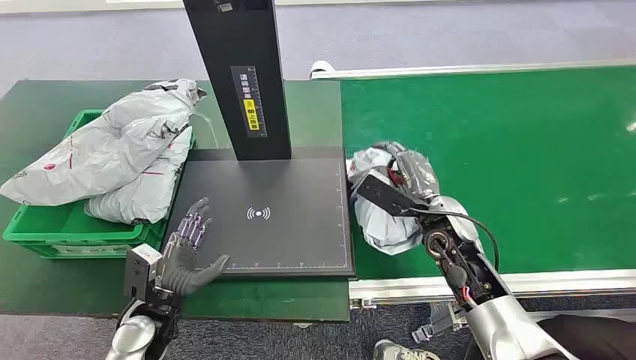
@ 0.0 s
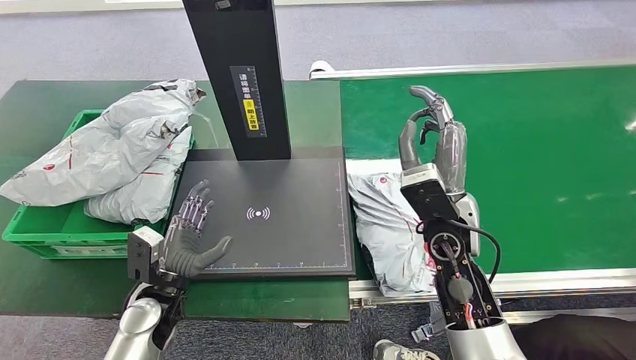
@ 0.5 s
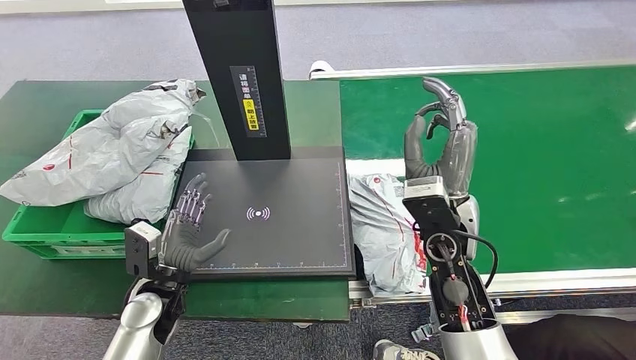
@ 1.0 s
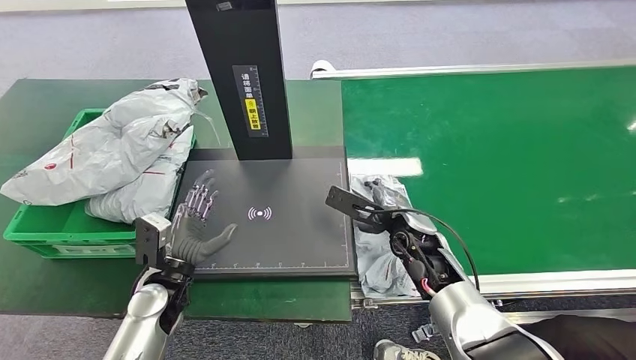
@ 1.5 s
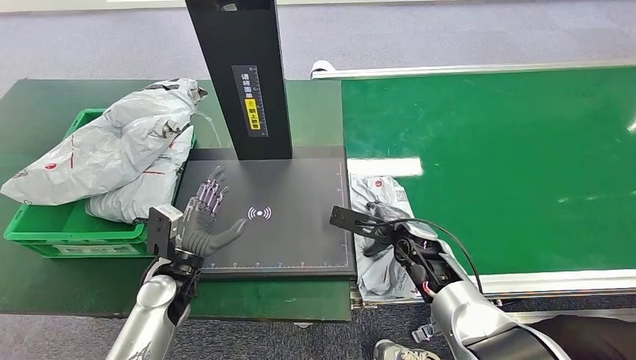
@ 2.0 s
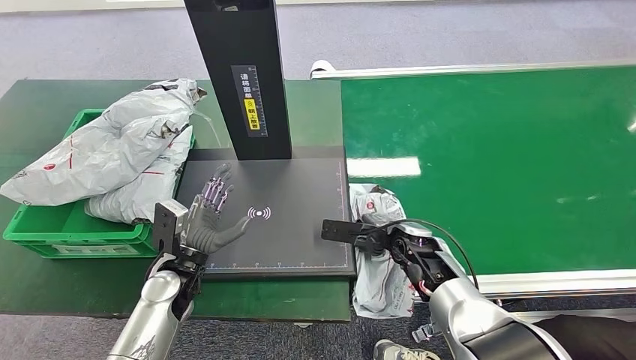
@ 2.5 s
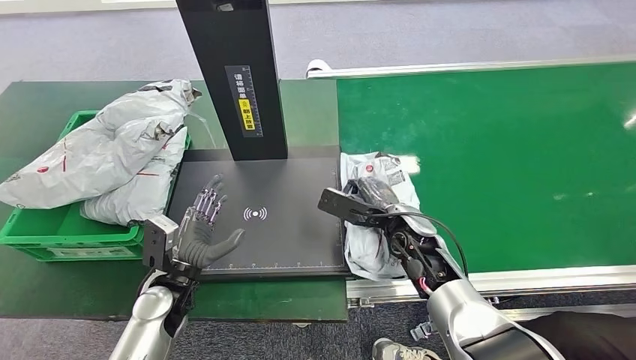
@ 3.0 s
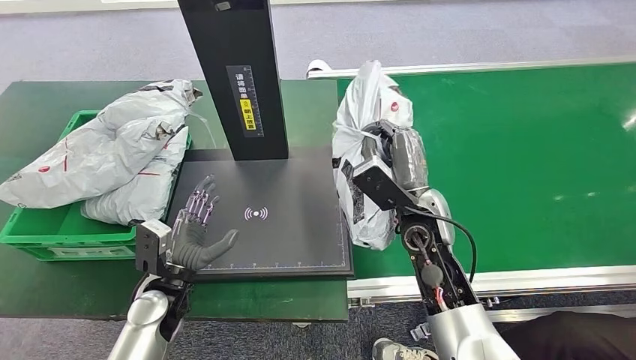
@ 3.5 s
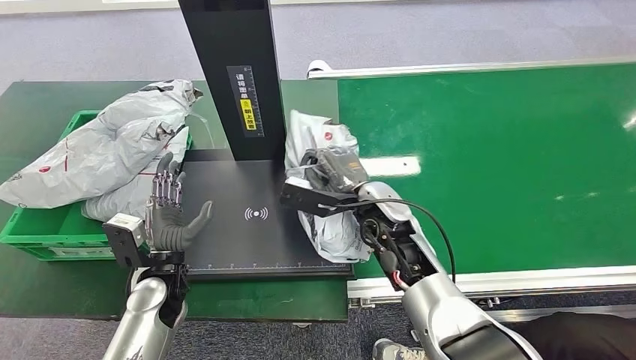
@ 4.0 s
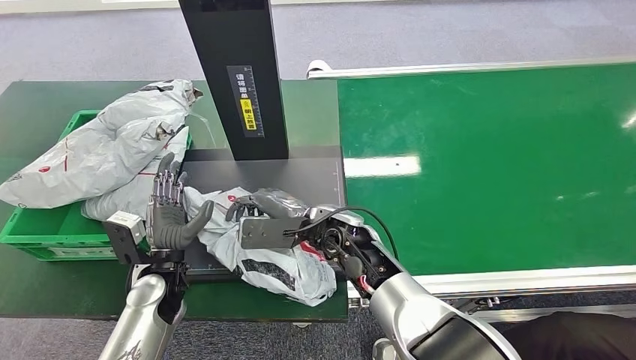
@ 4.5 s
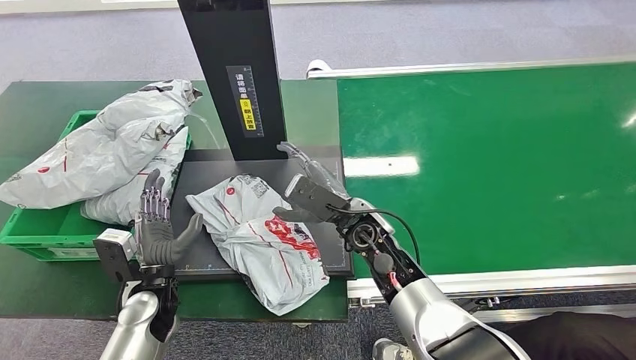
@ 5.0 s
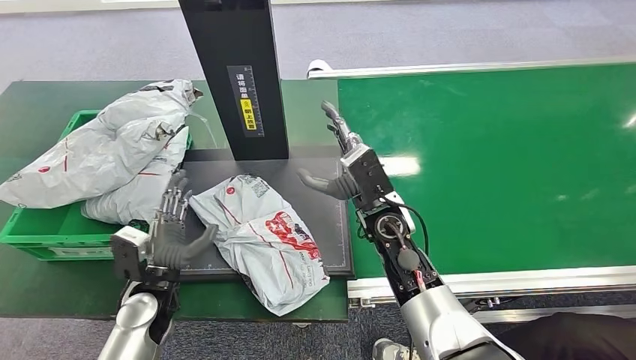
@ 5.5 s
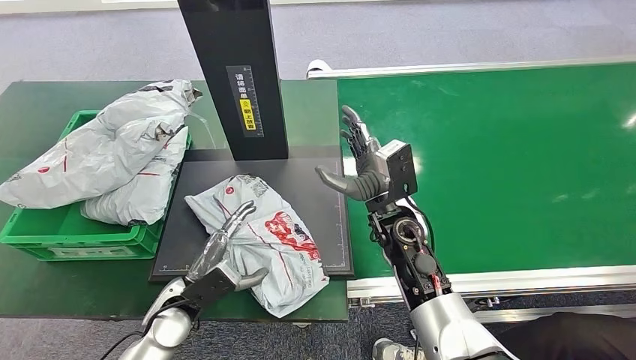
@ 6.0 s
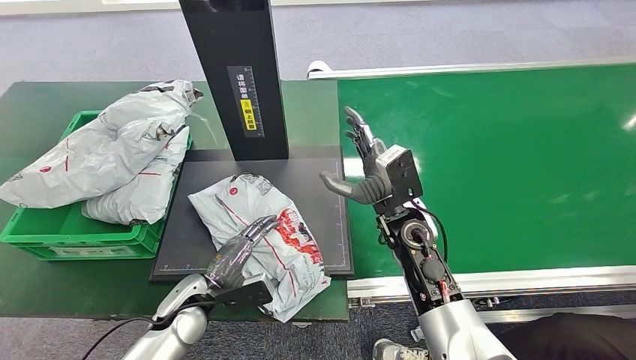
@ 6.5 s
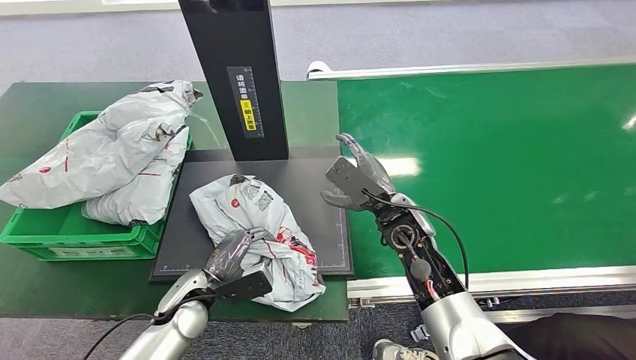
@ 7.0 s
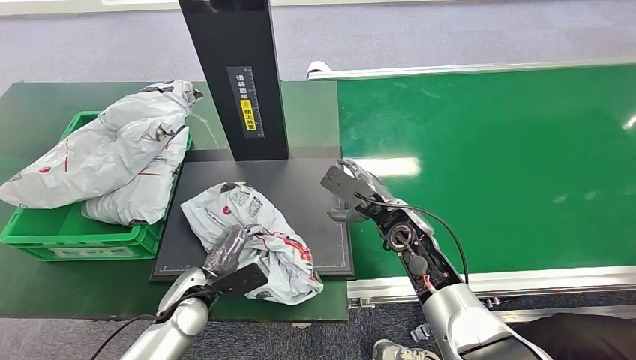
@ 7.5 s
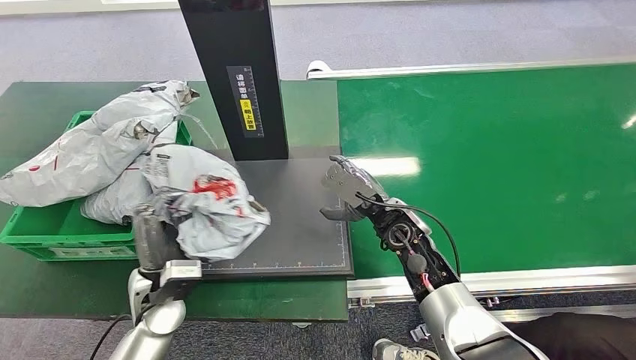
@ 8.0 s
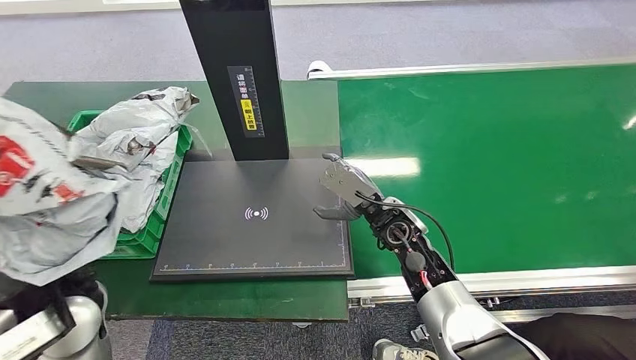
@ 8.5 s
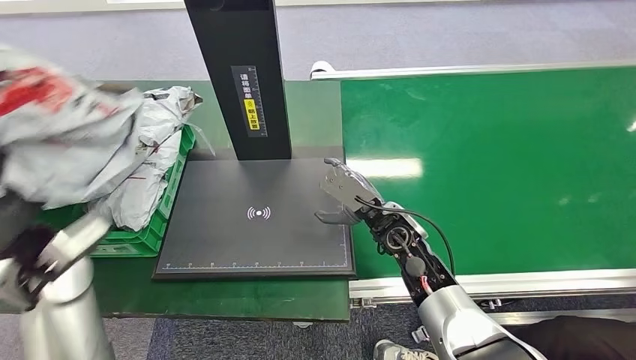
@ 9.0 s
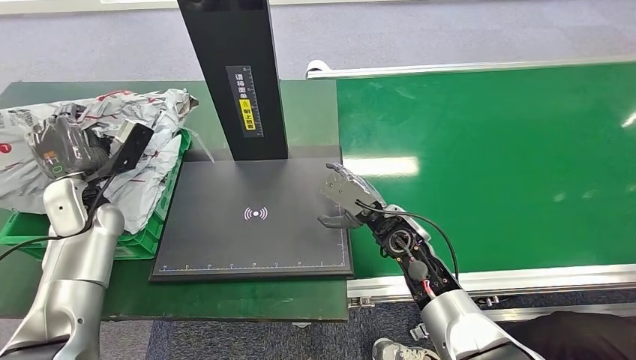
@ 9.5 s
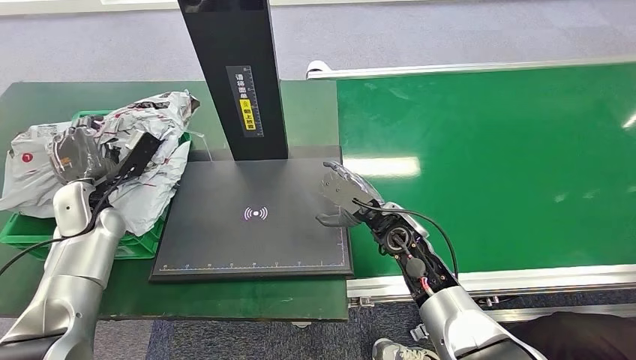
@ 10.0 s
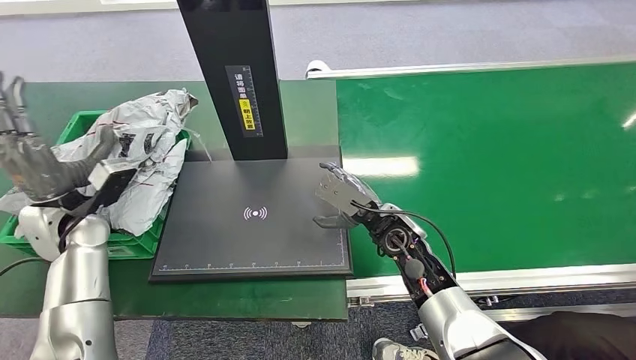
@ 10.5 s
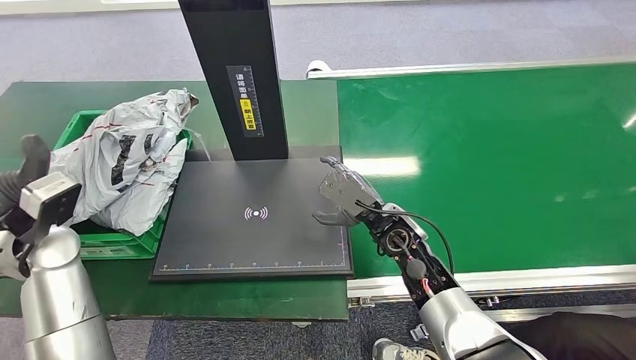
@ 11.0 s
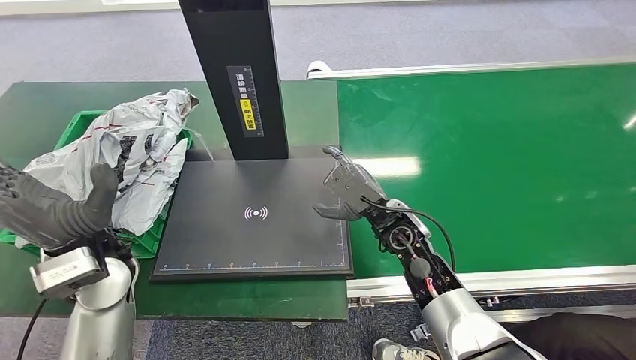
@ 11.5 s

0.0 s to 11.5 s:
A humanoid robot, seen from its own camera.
Step, 0.0 to 3.5 s: Pick up the package from the conveyor belt.
Step, 4.0 to 6.0 s: Place the package onto the inbound machine.
Step, 6.5 to 8.5 s: Pick up the package from the inbound machine.
Step, 9.0 to 11.5 s: Place the package into the parcel locker.
9.5 to 11.5 s: The left hand travels to the right and backward by approximately 15 cm.
